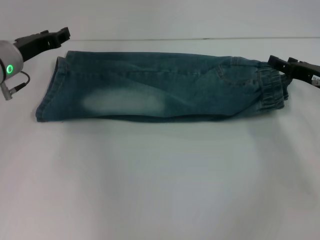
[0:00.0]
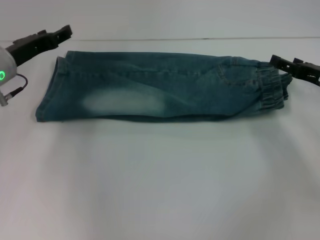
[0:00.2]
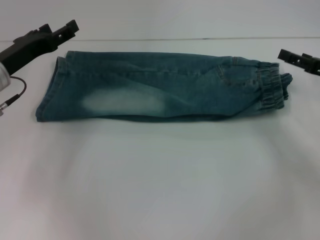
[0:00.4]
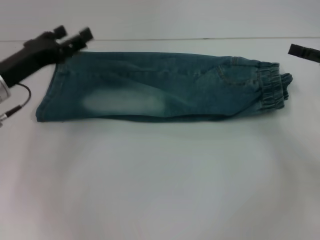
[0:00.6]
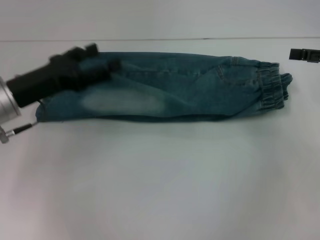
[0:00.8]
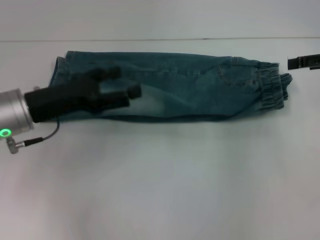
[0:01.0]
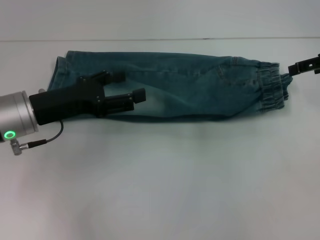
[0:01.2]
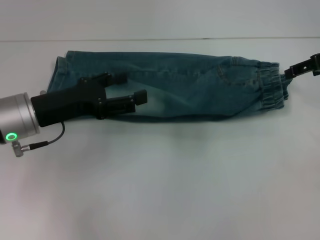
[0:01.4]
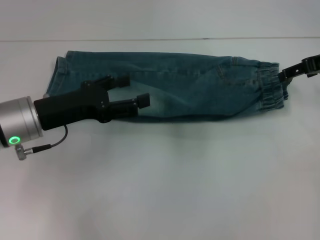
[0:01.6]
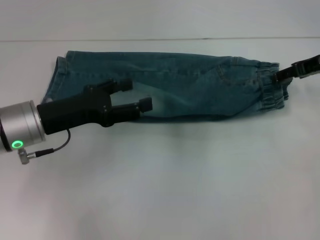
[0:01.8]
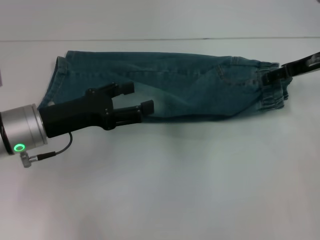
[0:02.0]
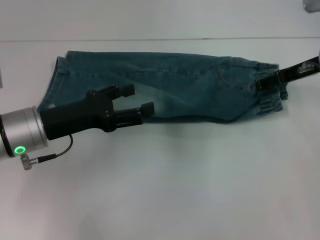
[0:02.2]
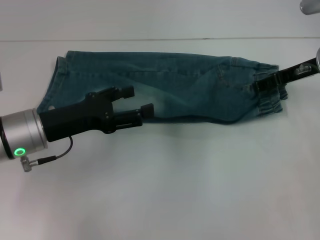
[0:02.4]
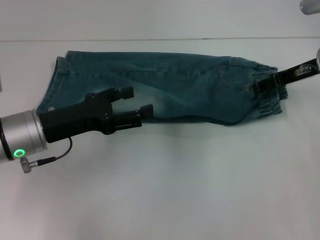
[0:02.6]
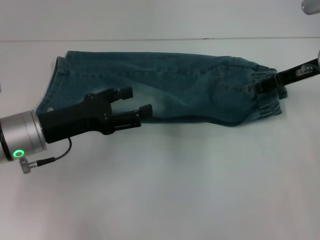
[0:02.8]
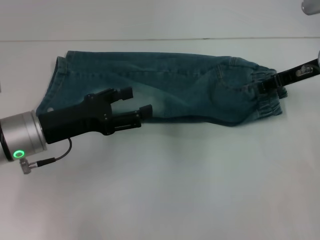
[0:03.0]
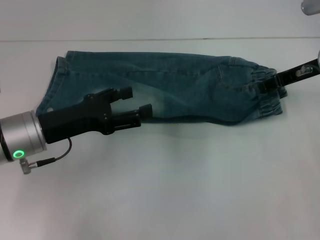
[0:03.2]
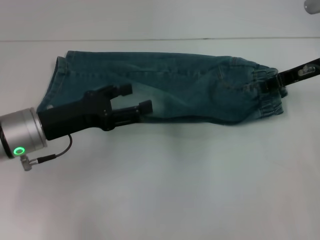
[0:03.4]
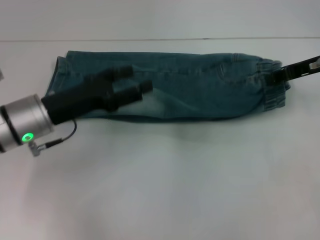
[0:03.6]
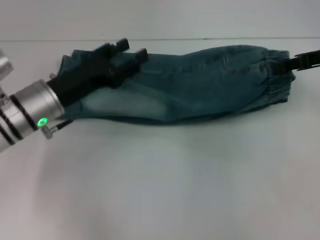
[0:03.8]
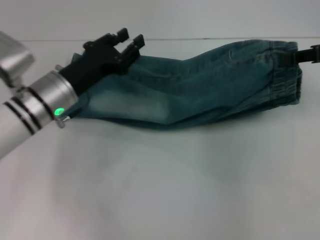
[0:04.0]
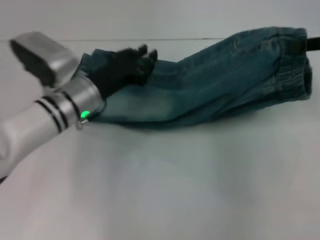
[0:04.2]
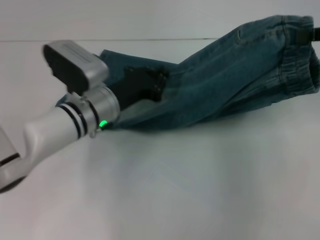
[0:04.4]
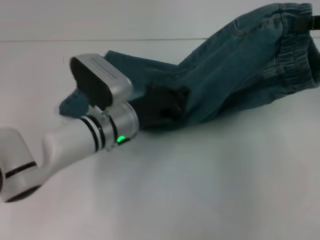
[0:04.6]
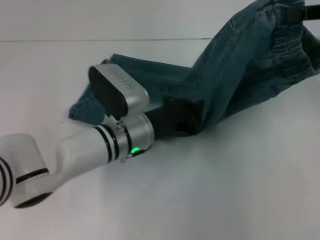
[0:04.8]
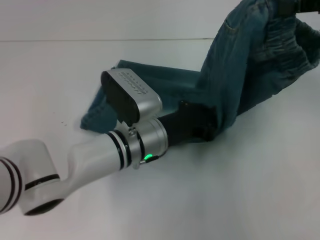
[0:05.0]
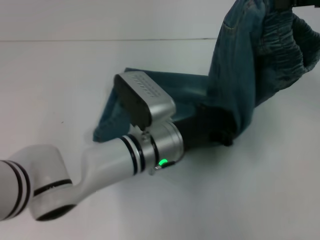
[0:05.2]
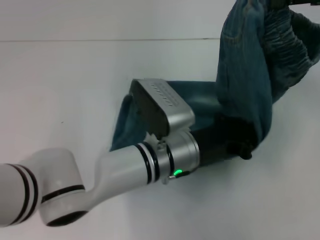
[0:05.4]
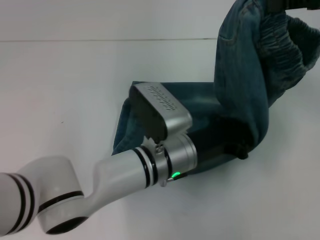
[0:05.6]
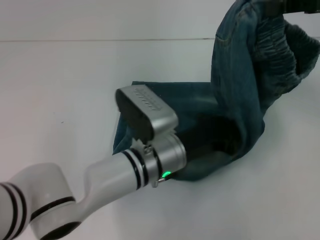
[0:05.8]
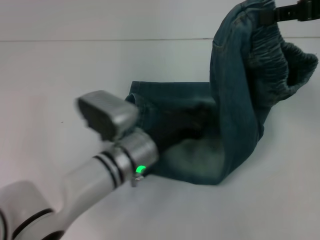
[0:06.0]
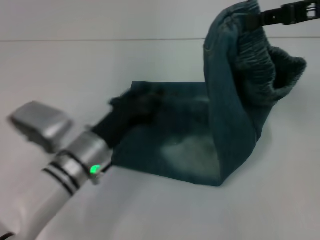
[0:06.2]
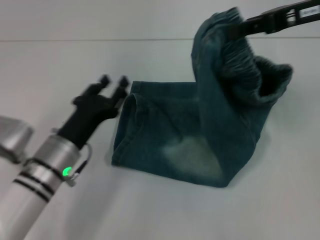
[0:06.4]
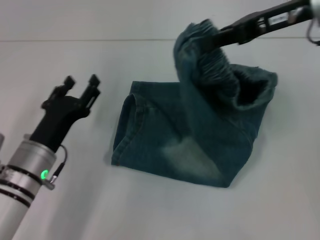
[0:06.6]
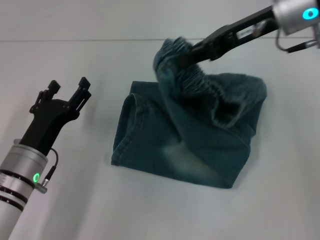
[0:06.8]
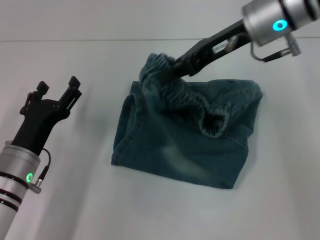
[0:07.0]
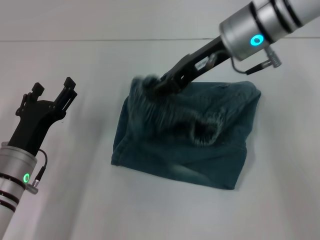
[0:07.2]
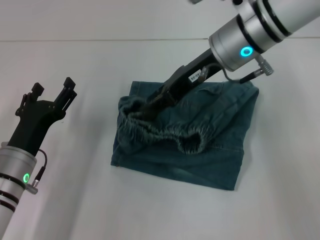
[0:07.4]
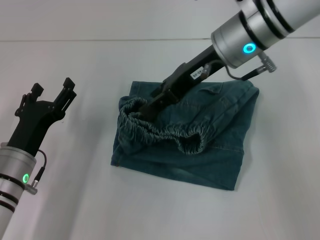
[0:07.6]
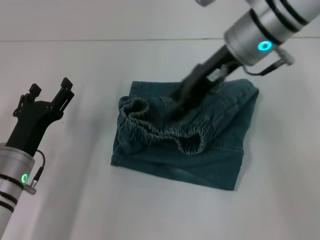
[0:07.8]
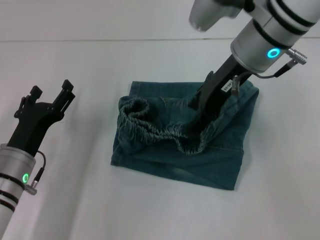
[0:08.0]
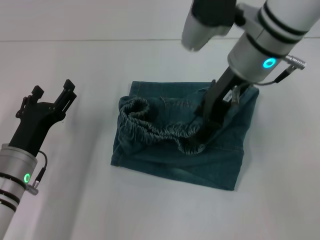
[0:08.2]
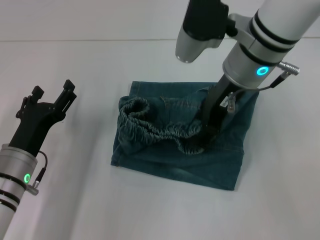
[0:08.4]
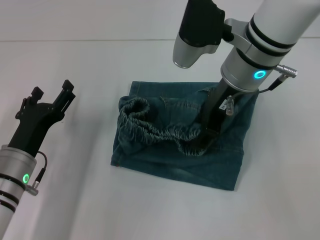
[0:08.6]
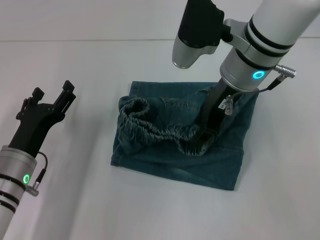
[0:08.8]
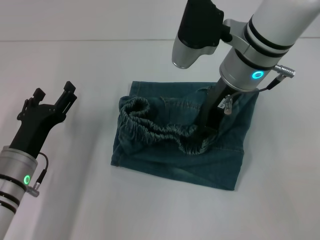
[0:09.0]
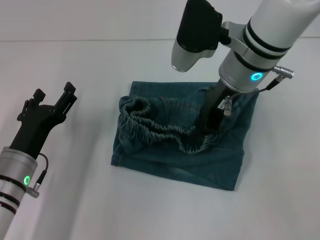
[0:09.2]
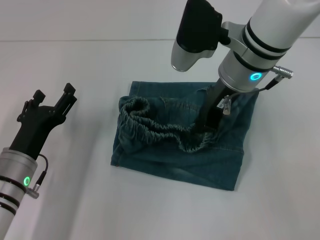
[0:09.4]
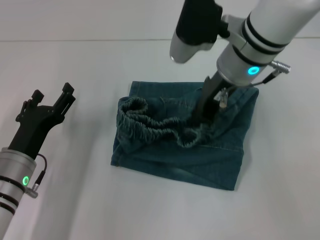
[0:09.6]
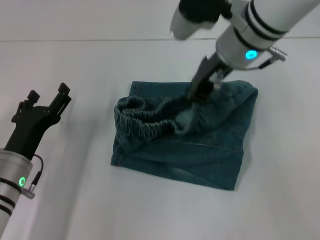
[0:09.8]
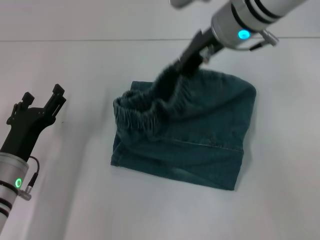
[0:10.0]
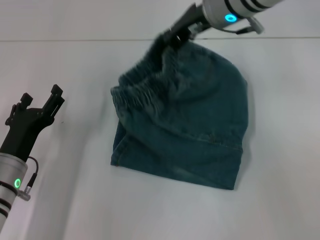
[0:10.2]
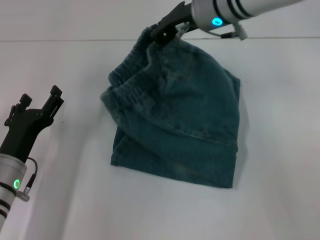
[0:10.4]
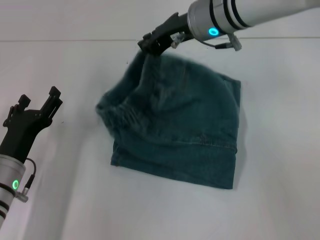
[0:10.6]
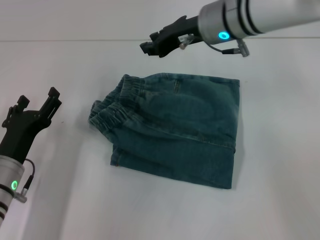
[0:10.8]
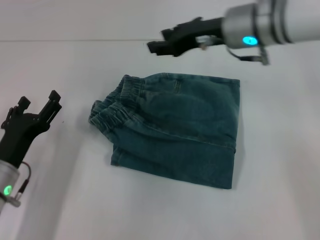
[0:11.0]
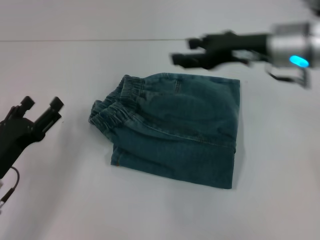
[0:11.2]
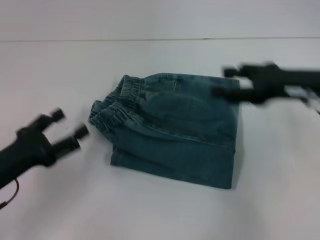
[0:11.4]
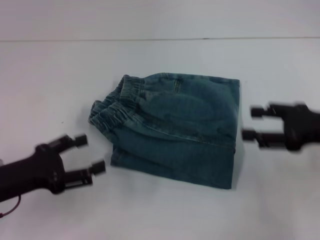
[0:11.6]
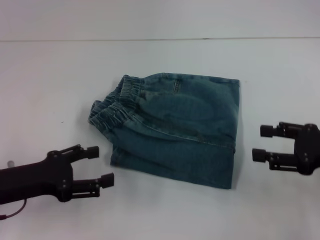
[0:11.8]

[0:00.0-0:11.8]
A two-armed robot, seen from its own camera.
Step, 0:00.2 to 0:03.4: Grab the waistband with your right hand.
Step, 0:03.6 to 0:05.8: Press the middle of the pants with your left hand.
Step, 0:06.0 to 0:11.0: Fold to the left with your right hand.
0:00.0 to 0:01.4: The left gripper heads backward, covering roughly 10 cm, and opens. The right gripper travels upward by about 10 cm, and opens.
0:01.4 to 0:03.0: The right gripper heads to the left and downward, covering approximately 5 cm.
0:03.0 to 0:04.4: The left gripper heads to the right and forward, covering roughly 10 cm, and closes up, while the right gripper goes approximately 15 cm upward, to the right and backward, and closes its fingers.
0:04.4 to 0:06.0: The left gripper is displaced backward by some 5 cm, while the right gripper moves some 5 cm.
0:06.0 to 0:07.4: Both grippers travel together to the left, some 15 cm. The left gripper opens.
0:08.8 to 0:10.4: The right gripper travels forward by some 5 cm, and closes.
0:10.4 to 0:11.8: The left gripper moves upward, roughly 5 cm; the right gripper goes roughly 30 cm to the right, backward and downward, and opens.

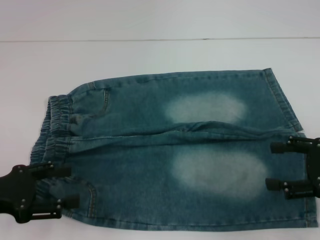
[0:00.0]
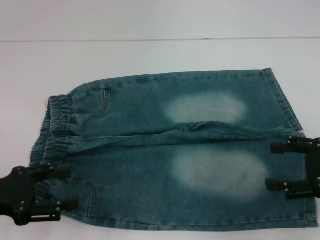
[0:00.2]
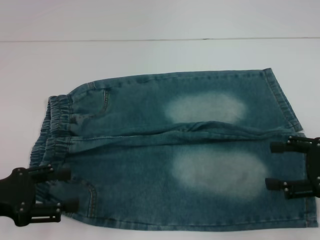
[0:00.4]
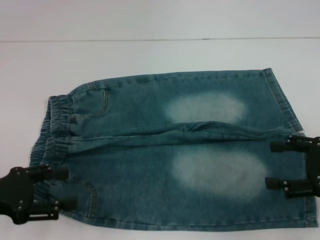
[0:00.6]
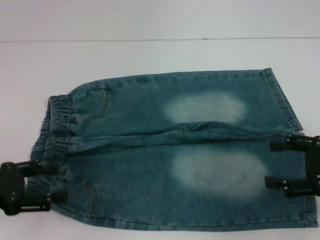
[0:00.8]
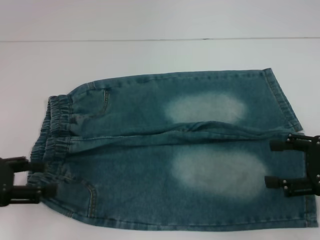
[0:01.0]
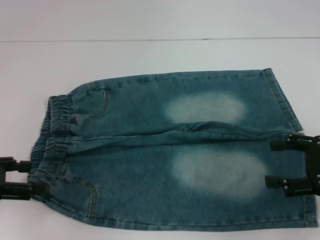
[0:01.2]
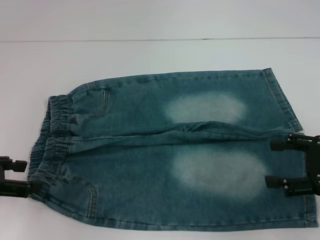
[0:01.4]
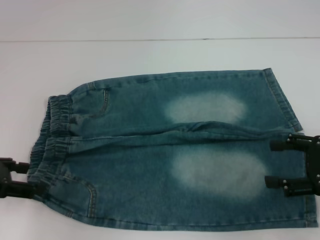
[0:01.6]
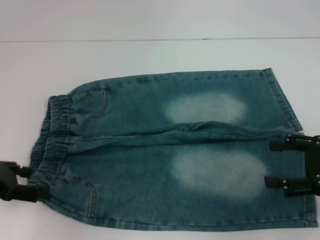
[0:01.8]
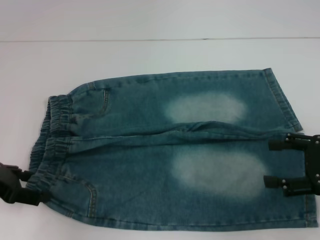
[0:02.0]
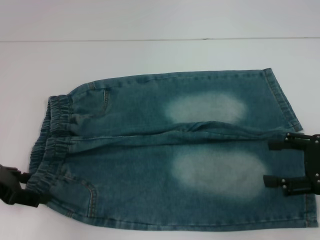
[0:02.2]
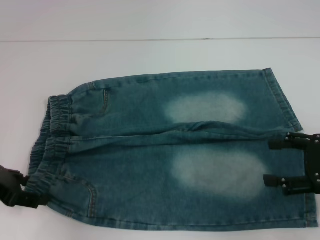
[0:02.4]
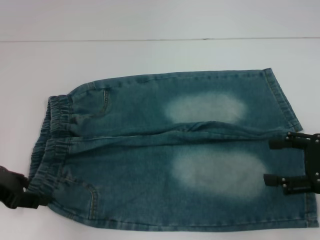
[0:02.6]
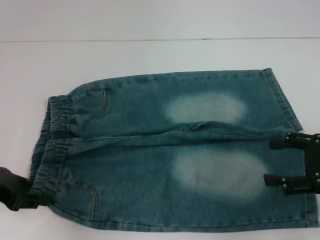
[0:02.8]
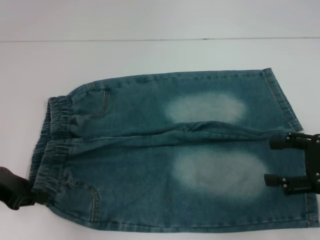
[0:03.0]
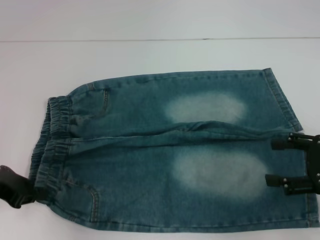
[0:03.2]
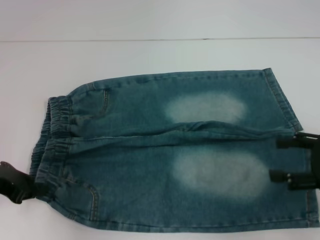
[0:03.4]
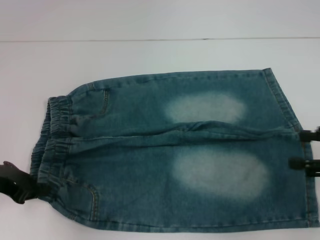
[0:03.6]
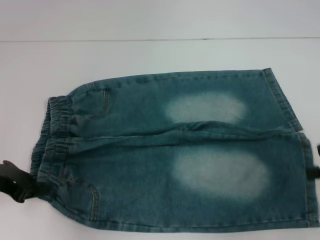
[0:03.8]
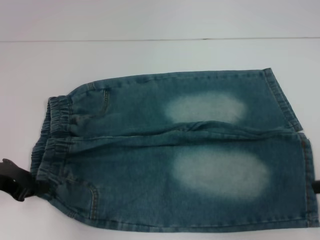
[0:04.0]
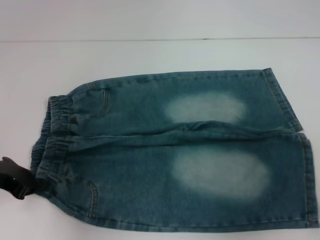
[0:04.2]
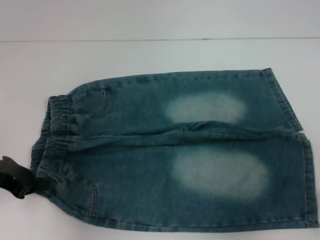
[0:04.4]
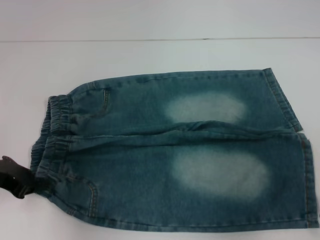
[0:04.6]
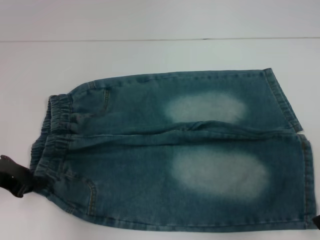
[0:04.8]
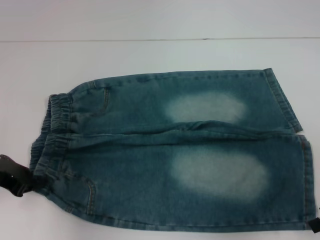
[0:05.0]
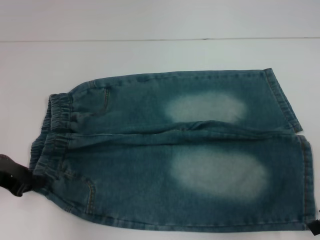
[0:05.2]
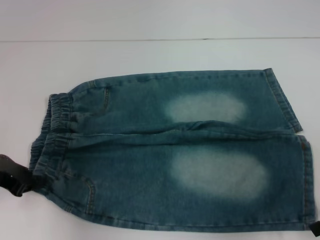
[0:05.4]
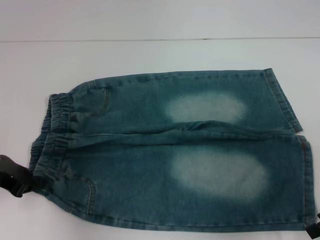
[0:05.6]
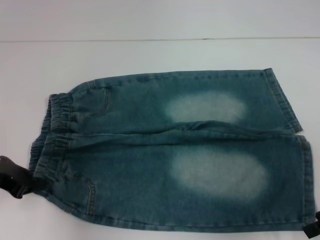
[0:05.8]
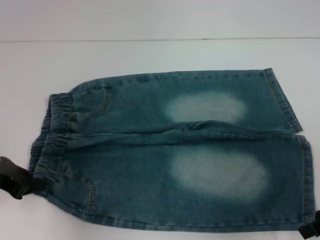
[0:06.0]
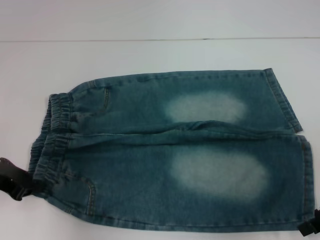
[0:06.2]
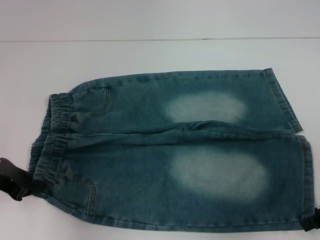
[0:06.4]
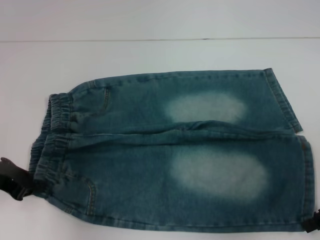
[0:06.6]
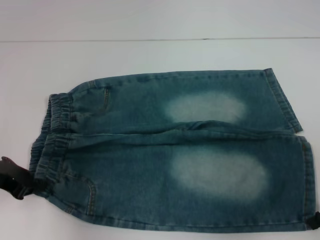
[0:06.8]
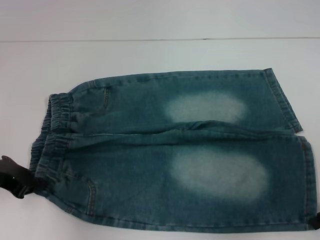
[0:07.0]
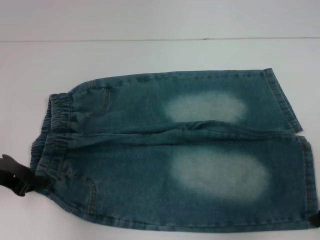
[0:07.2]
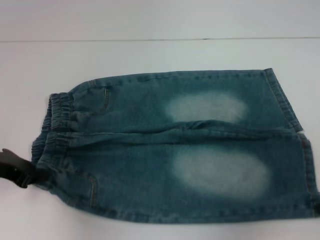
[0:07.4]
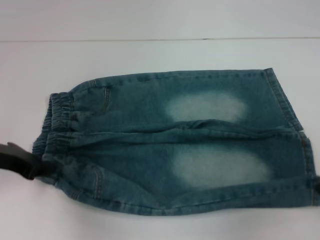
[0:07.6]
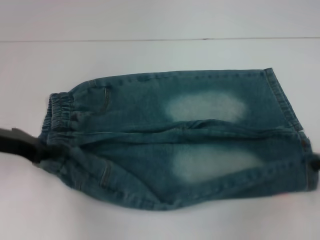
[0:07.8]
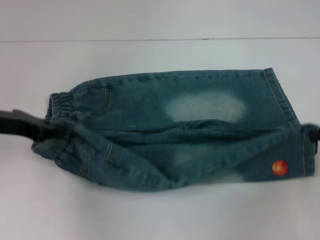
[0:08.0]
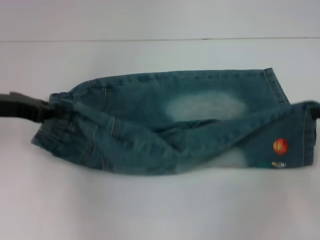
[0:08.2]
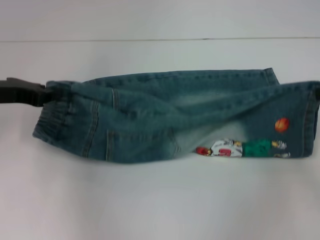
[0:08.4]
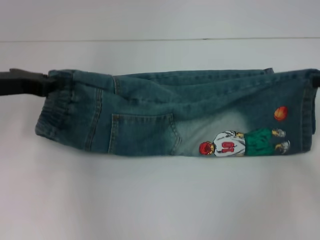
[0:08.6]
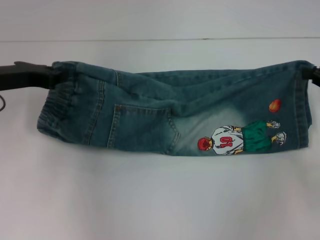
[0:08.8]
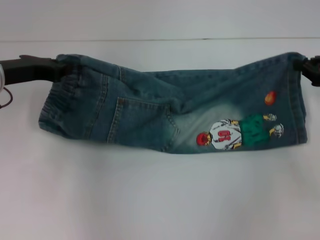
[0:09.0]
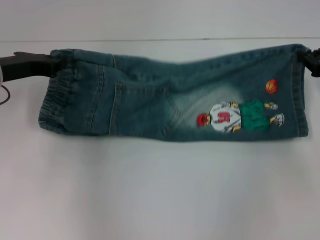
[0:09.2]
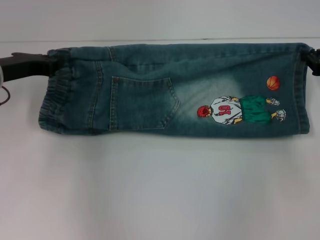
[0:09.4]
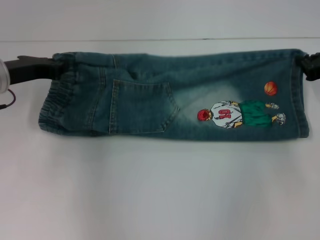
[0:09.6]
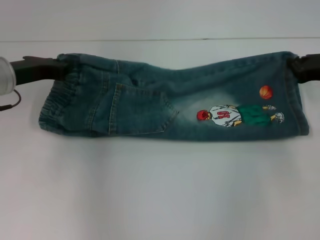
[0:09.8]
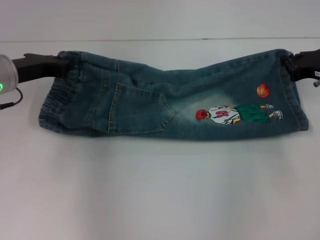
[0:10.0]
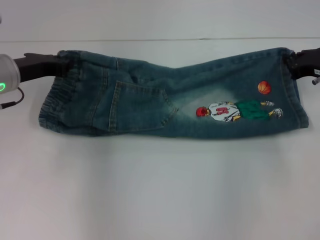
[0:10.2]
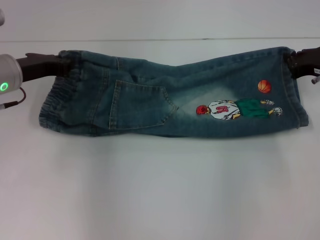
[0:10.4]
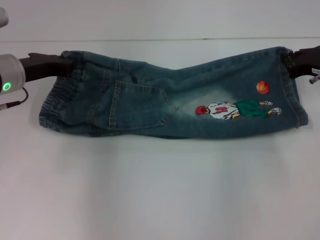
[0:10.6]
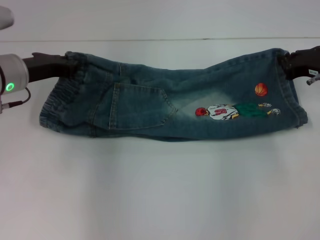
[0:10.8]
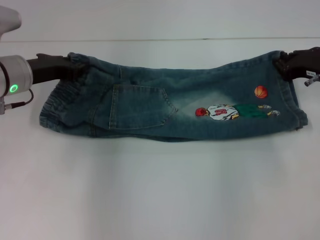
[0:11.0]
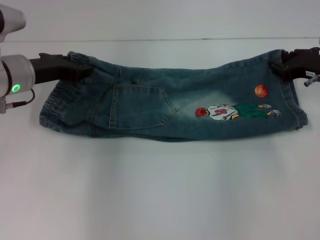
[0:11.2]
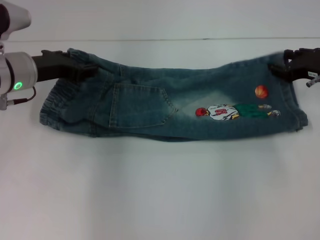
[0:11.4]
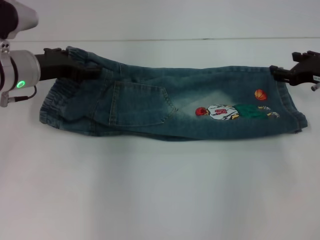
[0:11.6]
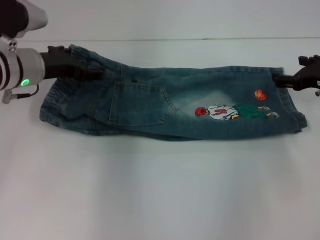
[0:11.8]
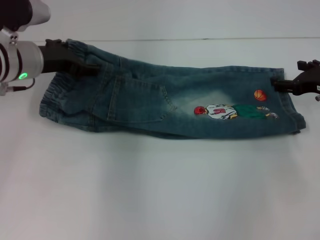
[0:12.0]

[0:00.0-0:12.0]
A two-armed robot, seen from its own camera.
Step, 0:00.0 to 0:03.2: Hold the lower left waistband with your left hand.
Step, 0:03.4 to 0:07.2: Grab the lower right pant leg with your right hand.
0:00.0 to 0:01.6: The left gripper shifts by about 5 cm.
0:01.6 to 0:03.0: The left gripper closes up.
0:03.0 to 0:04.4: The right gripper moves about 5 cm; the left gripper closes its fingers.
0:04.4 to 0:06.0: The grippers move only a little.
0:06.0 to 0:07.6: The right gripper closes.
0:07.6 to 0:09.0: Both grippers move forward, some 5 cm.
0:09.0 to 0:10.4: The right gripper ends up some 5 cm from where it was.
0:10.4 to 0:12.0: The left gripper opens up; the right gripper opens up.
